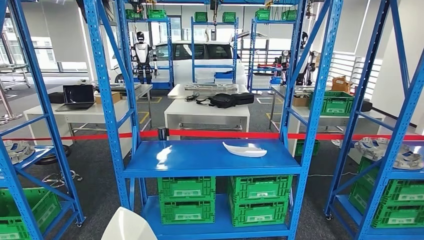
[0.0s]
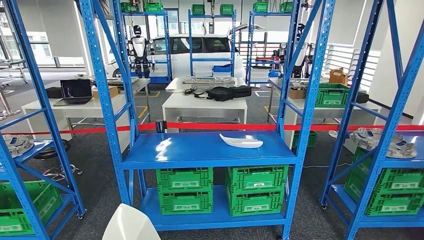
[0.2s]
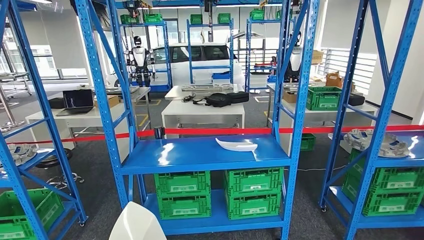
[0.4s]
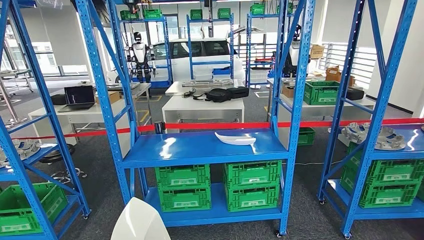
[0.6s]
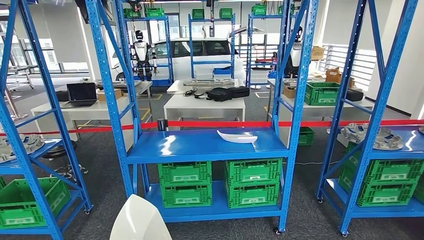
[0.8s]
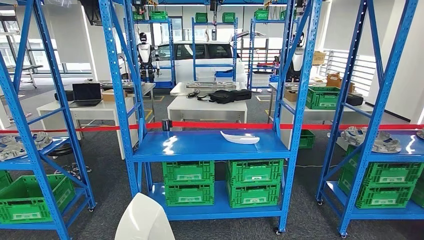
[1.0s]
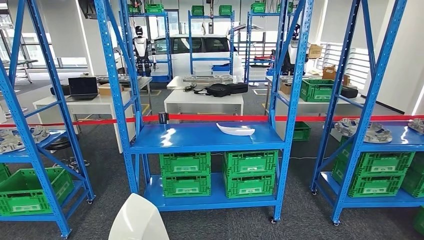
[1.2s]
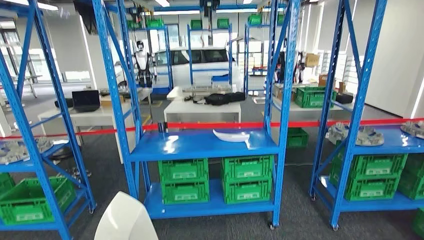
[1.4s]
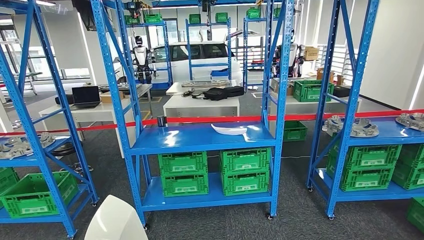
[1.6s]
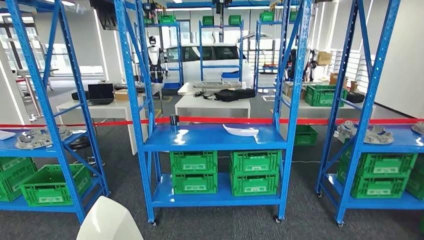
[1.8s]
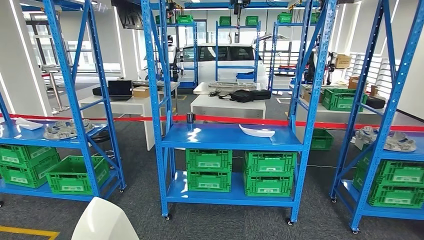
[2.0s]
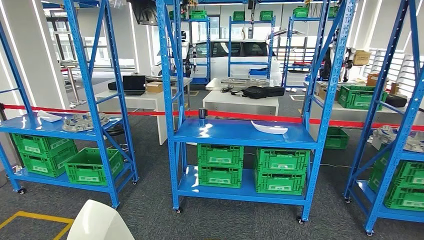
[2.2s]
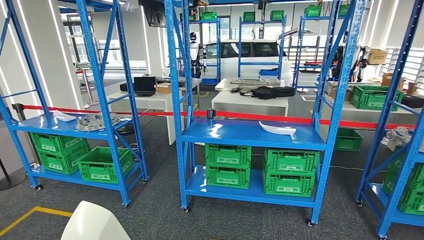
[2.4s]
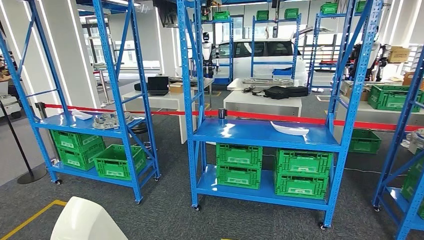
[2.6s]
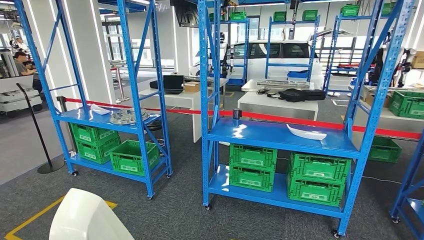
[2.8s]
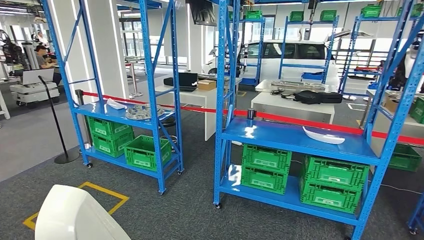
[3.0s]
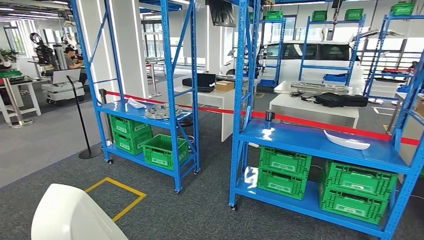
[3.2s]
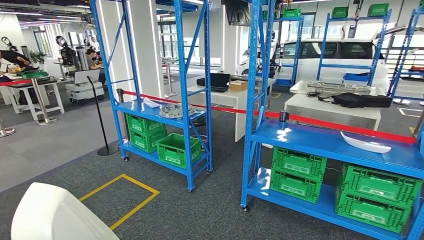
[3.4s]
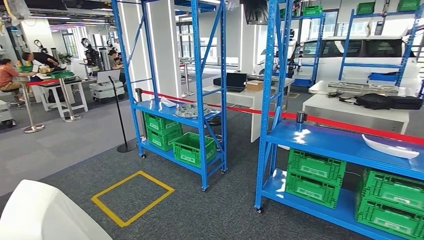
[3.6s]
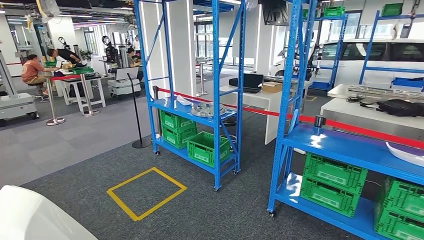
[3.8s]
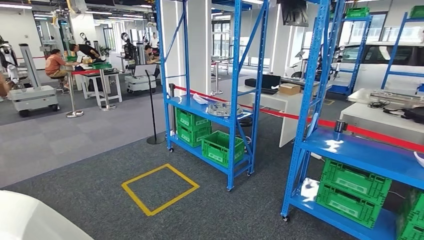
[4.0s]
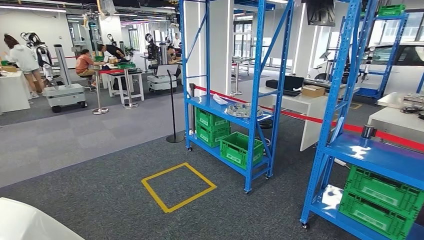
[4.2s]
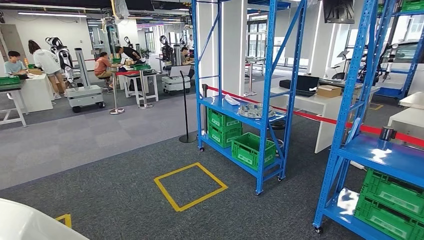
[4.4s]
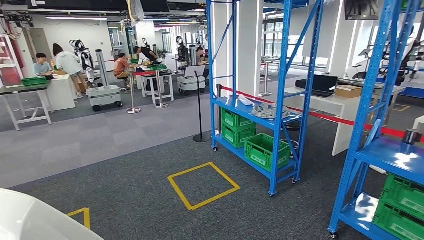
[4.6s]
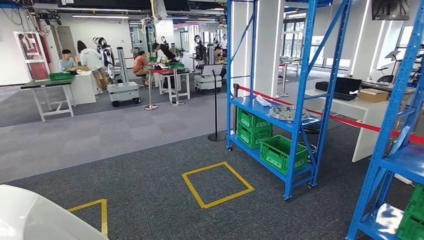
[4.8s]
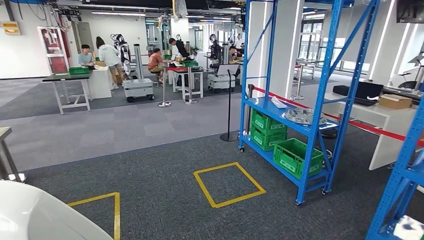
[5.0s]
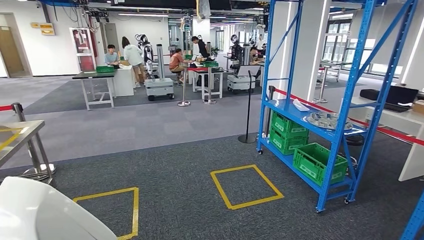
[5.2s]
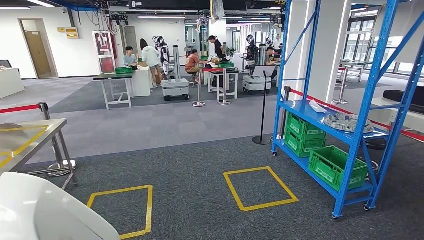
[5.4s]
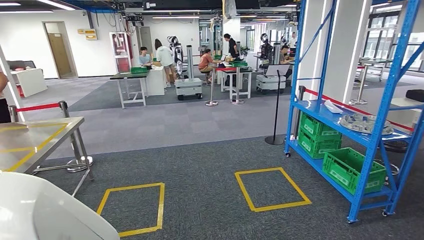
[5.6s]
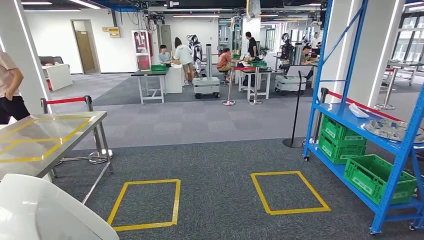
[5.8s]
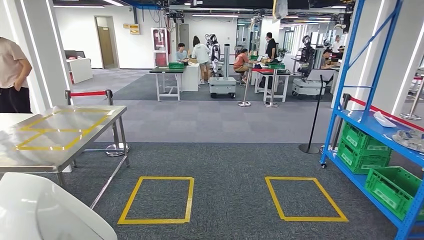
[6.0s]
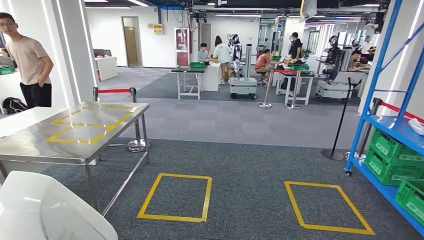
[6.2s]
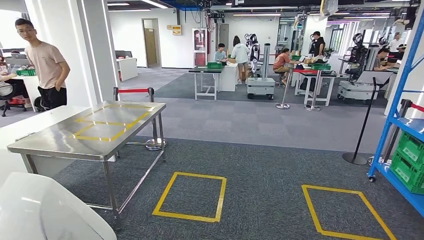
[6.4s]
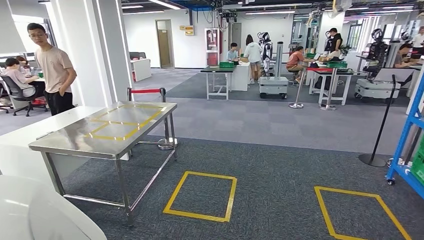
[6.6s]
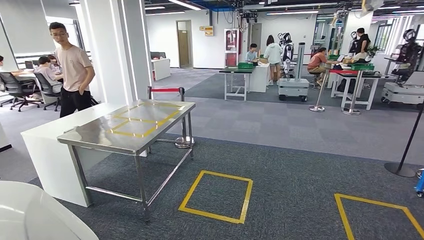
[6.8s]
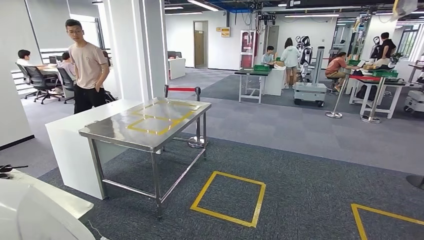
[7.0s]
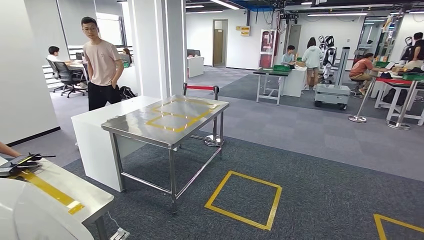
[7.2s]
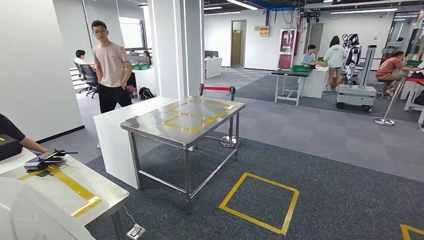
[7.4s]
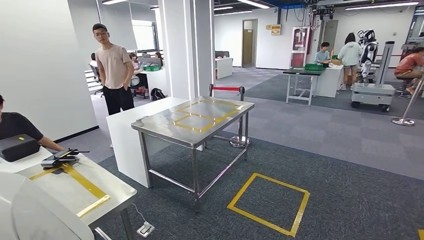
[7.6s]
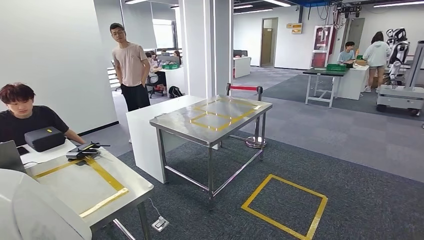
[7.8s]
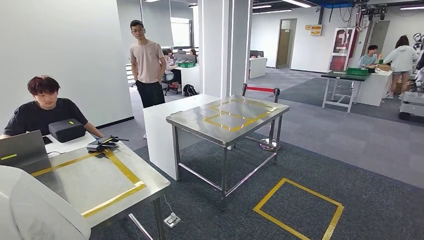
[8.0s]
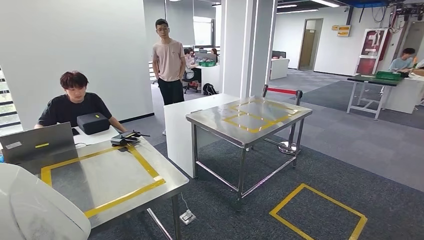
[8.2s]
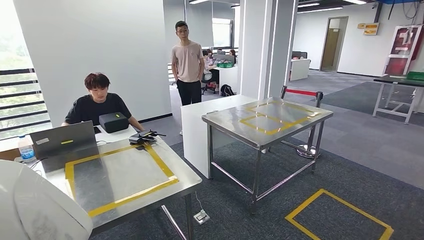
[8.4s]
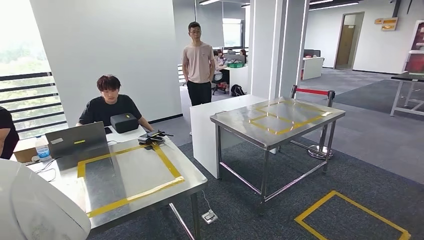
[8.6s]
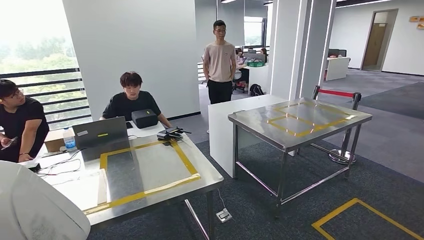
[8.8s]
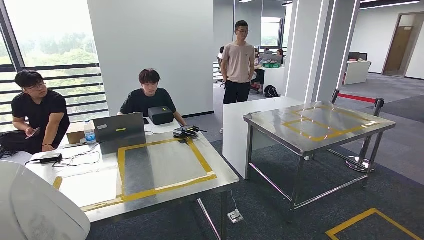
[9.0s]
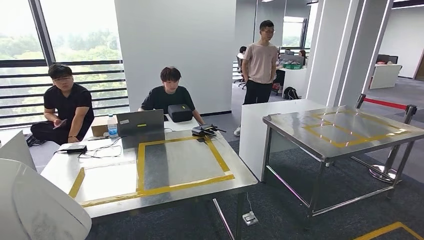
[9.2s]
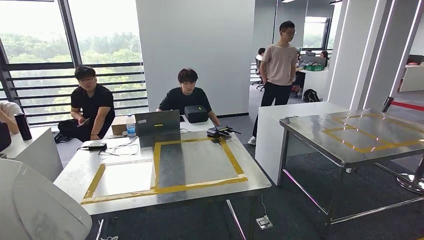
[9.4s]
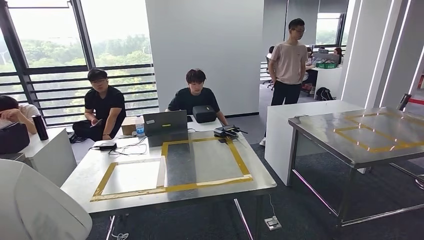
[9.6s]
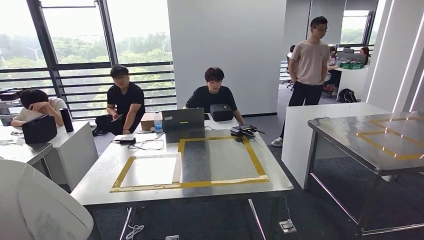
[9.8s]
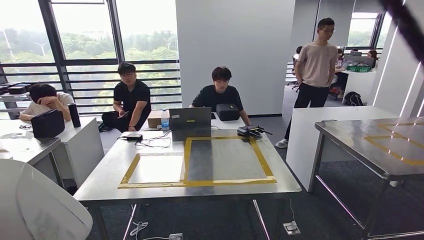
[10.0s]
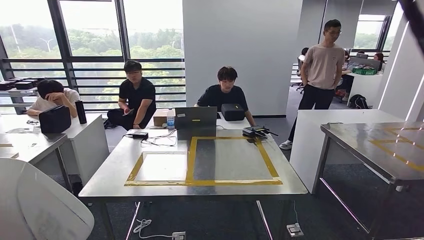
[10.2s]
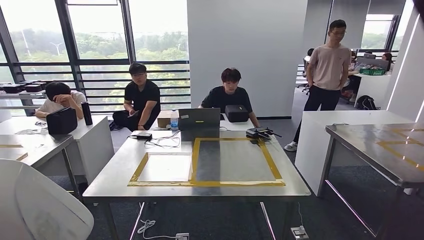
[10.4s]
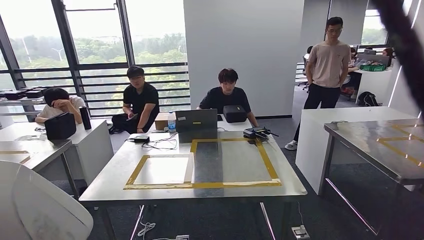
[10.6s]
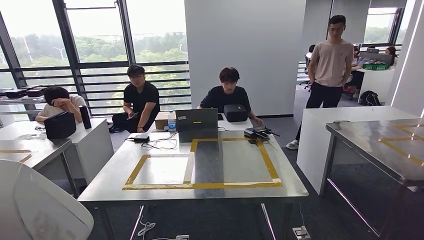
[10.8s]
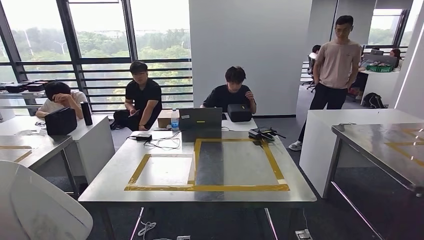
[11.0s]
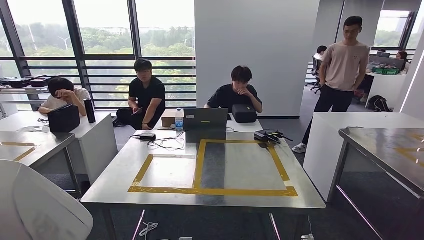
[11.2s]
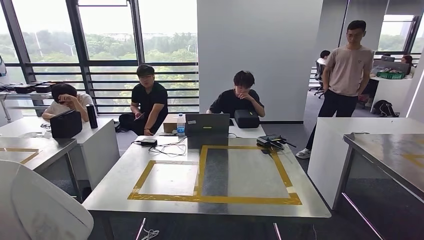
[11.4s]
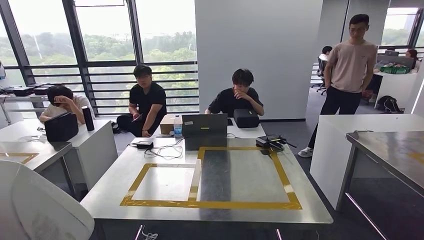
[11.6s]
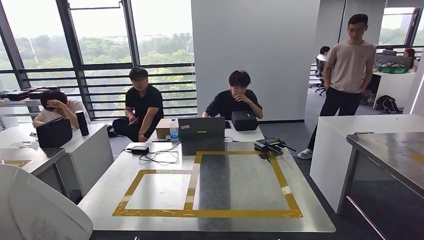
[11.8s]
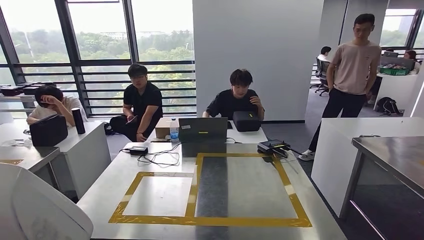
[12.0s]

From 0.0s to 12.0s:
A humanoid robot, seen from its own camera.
Step, from 0.0s to 10.6s: Move the small parts to the workbench.

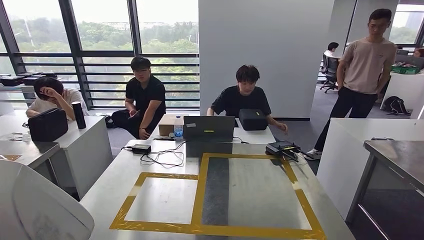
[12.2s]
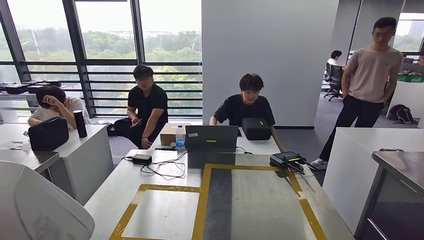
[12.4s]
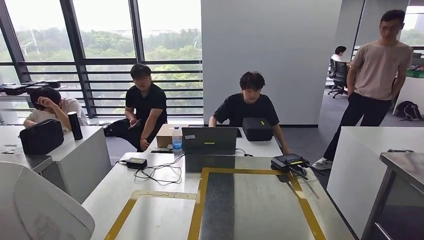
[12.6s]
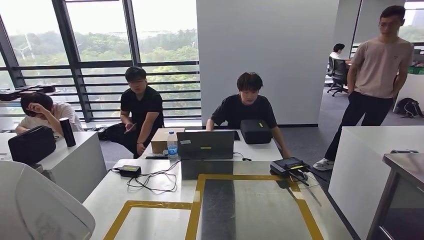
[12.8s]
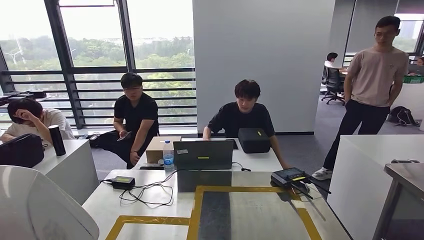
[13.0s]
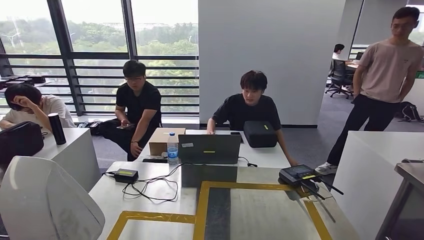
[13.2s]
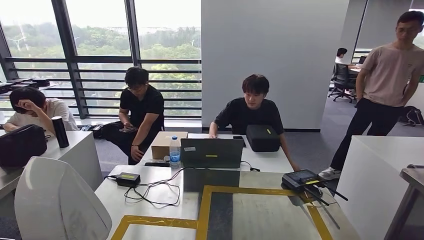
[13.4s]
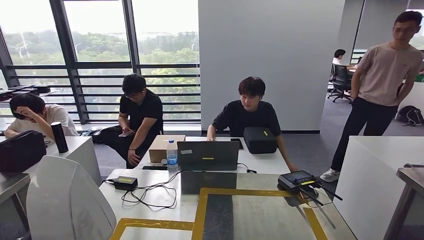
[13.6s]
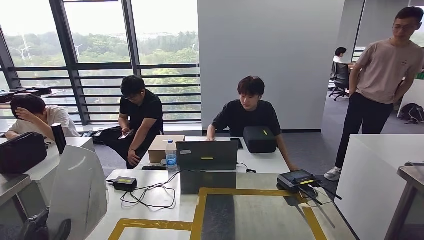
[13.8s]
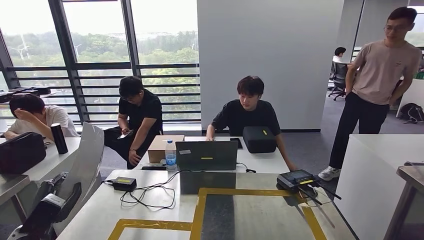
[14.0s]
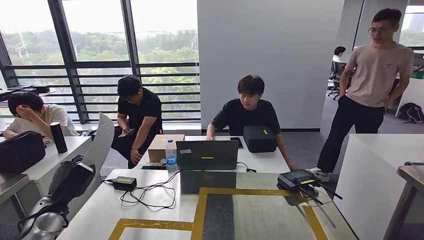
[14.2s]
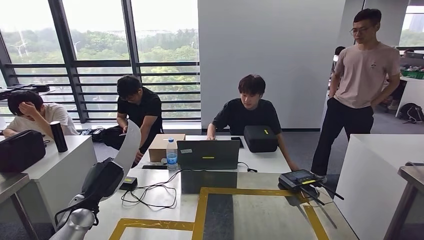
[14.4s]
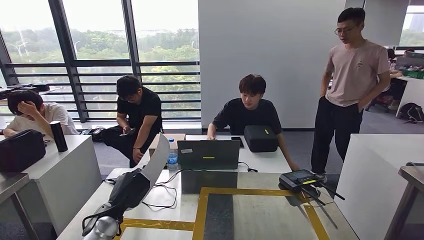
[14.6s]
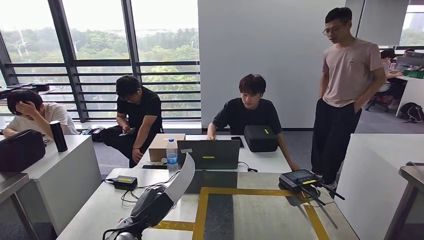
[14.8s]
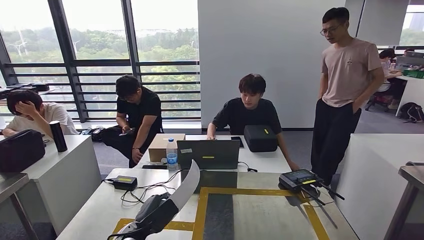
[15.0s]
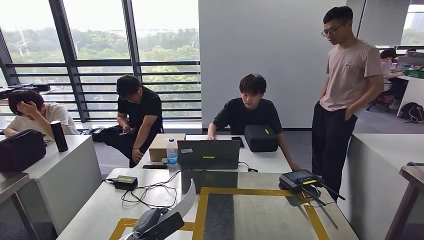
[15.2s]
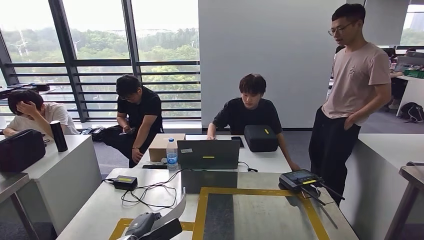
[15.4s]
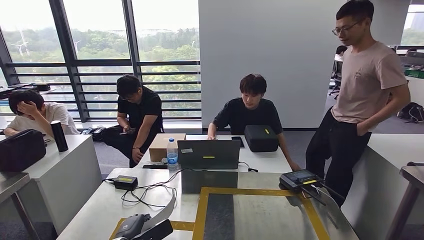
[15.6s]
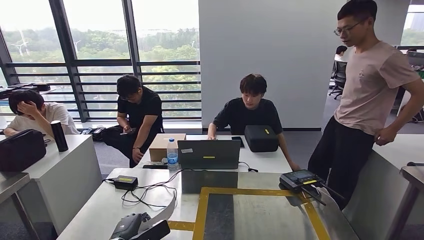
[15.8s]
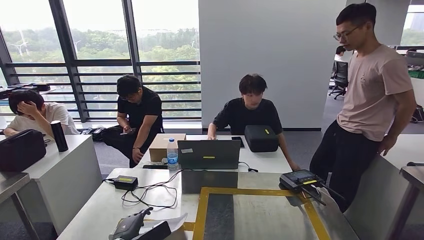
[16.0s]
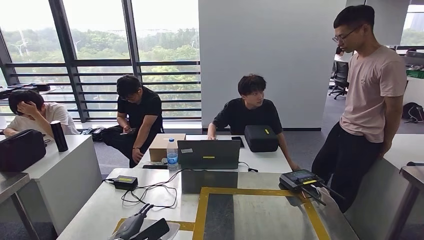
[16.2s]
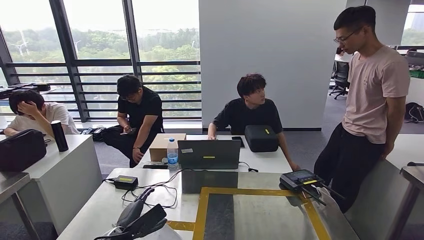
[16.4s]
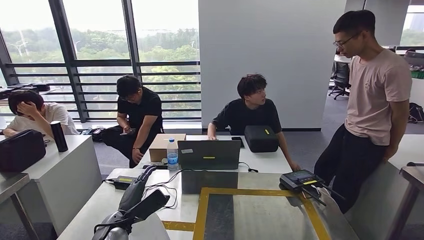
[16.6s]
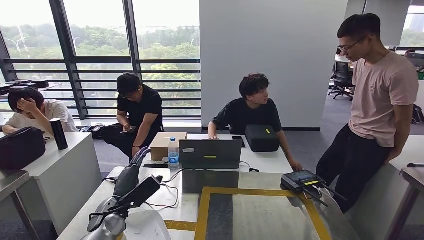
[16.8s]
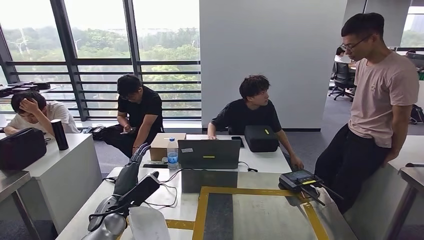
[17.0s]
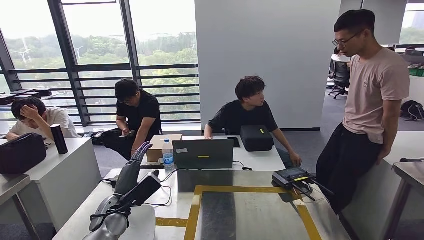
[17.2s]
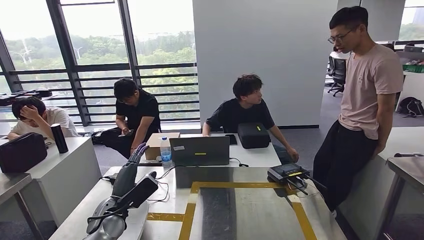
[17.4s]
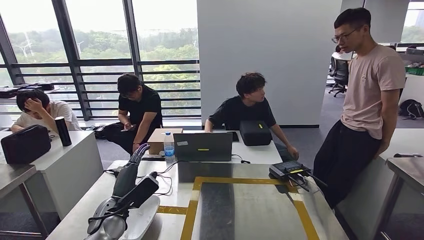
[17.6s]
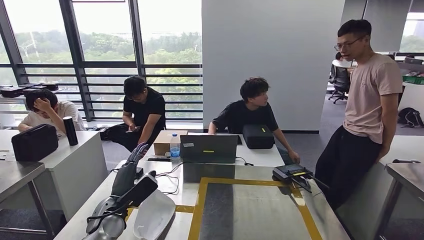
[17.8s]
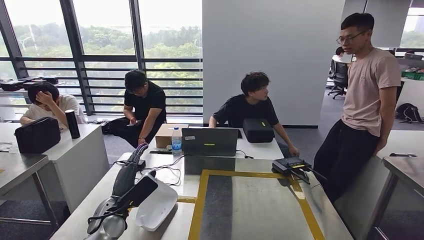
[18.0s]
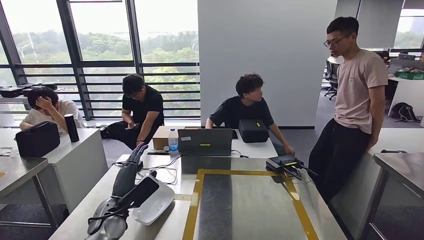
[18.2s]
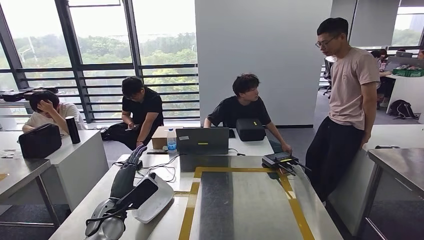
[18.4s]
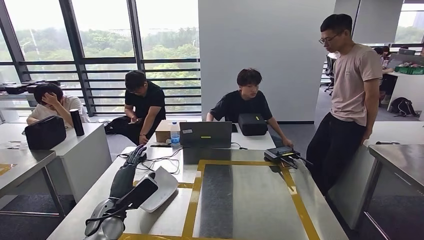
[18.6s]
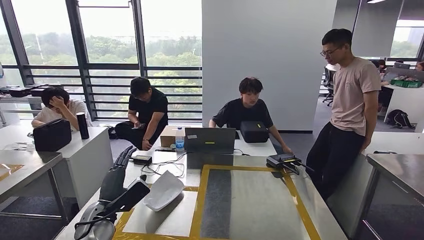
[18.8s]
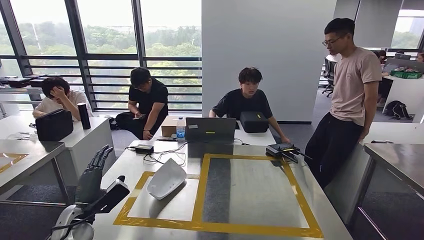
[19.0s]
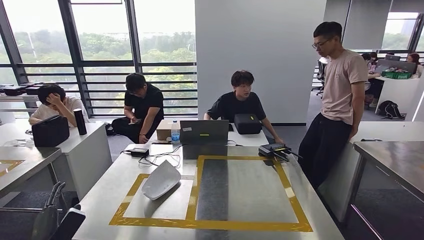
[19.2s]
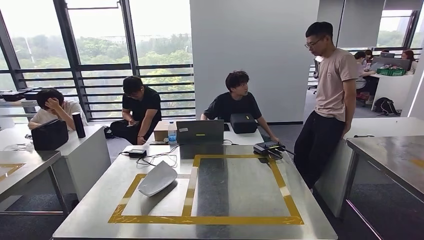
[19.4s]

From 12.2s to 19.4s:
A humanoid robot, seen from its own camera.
Step, from 12.2s to 17.8s: Insert the small parts into the corresponding slots on the workbench.
